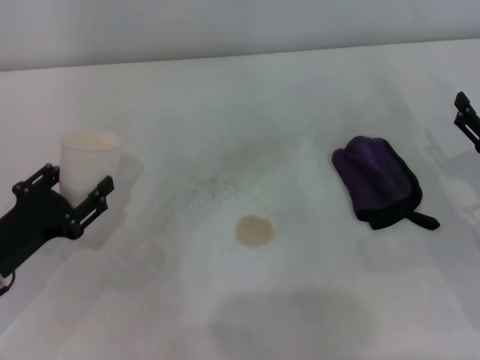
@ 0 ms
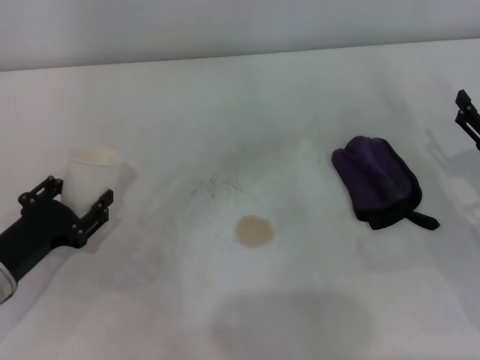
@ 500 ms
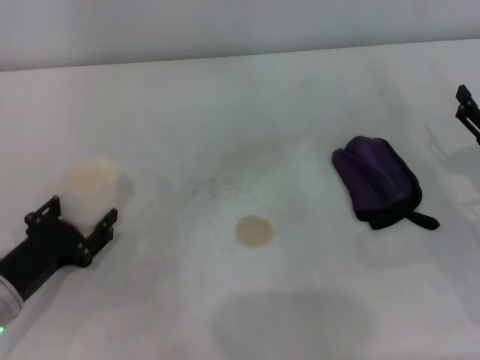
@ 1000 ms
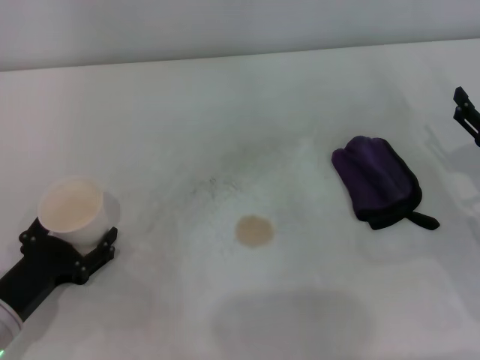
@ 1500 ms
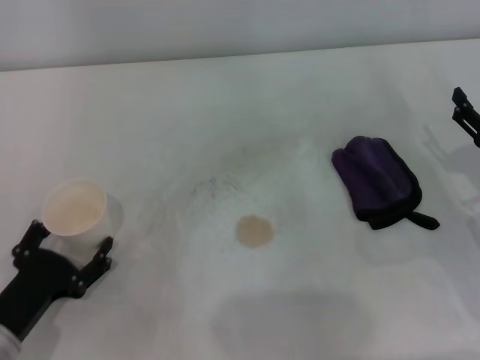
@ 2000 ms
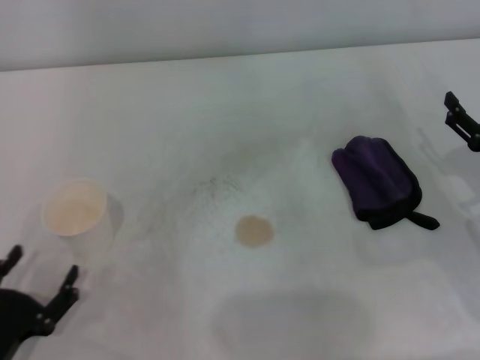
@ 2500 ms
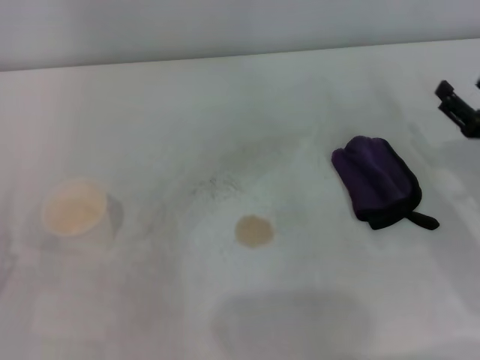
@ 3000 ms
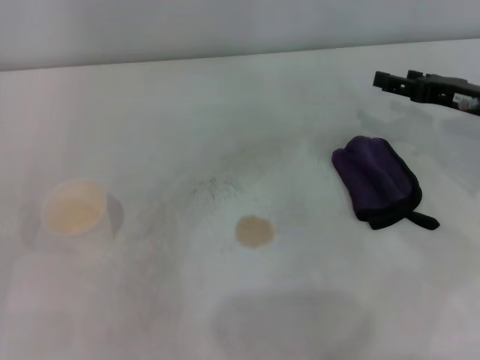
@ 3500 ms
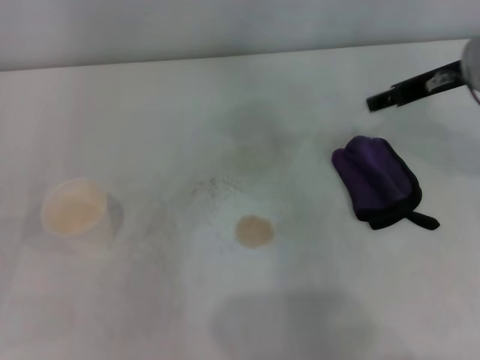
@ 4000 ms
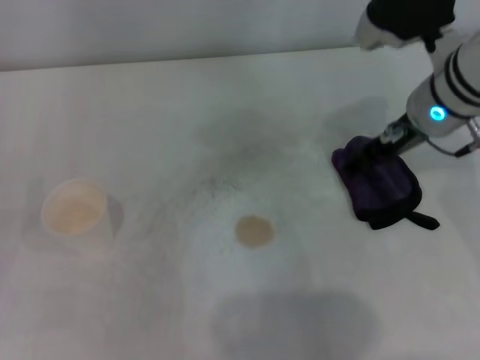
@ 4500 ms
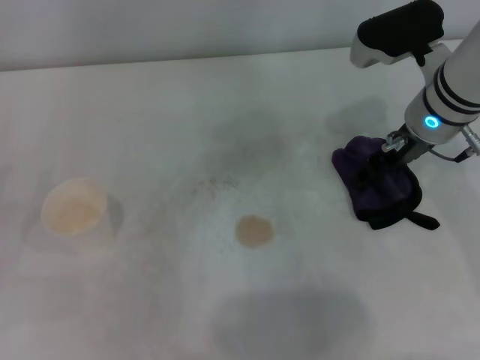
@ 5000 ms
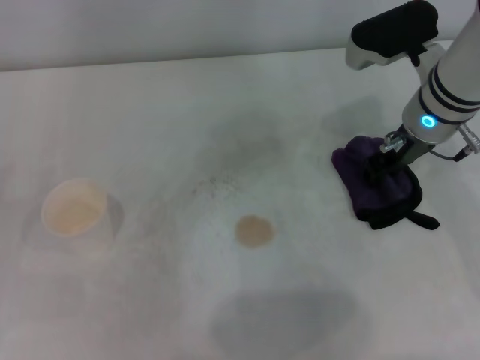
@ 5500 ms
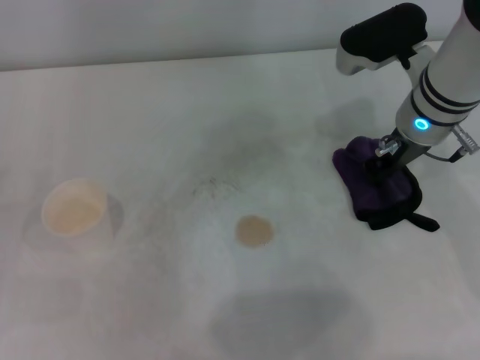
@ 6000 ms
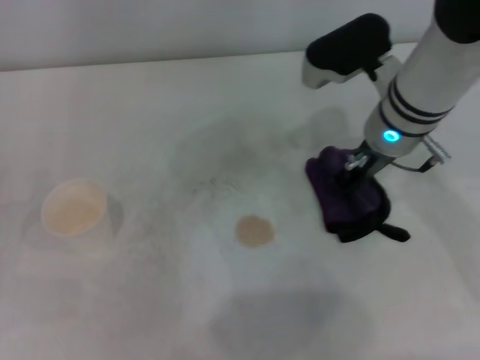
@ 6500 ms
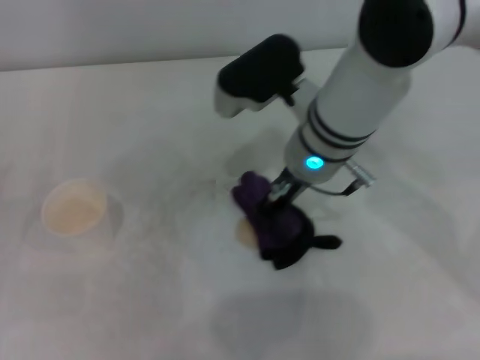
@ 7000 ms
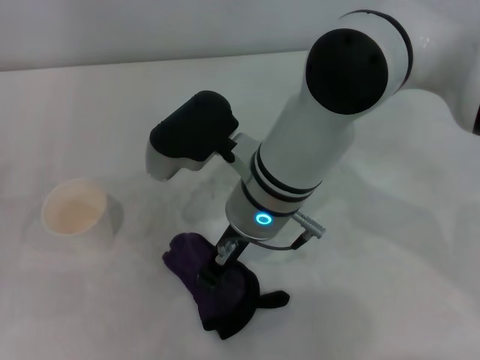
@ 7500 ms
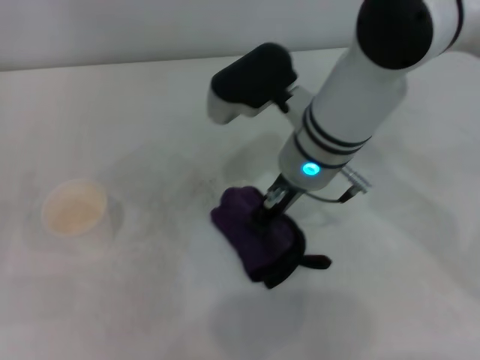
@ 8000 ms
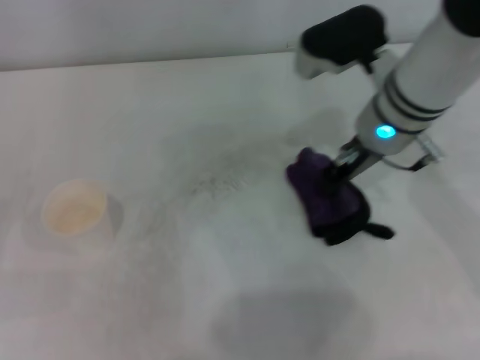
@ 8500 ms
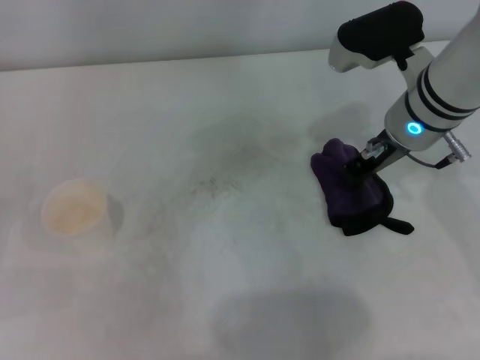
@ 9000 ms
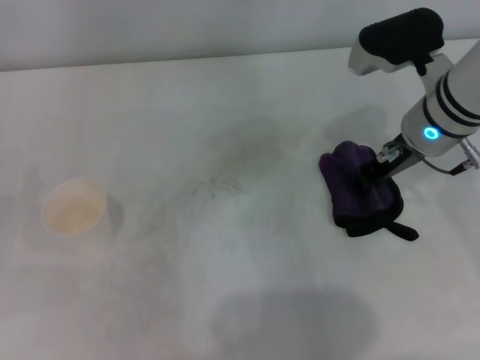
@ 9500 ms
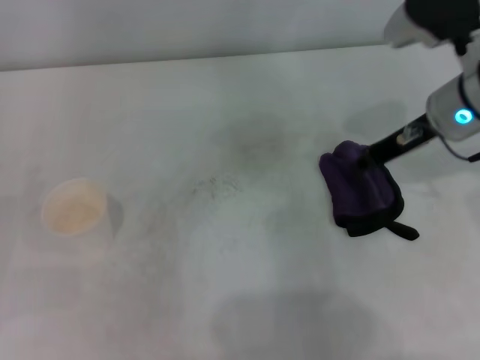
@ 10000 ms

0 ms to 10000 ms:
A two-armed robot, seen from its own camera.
Step, 2000 ms to 6000 ms: Grasp the rag with the right gripper.
Step, 6500 ms to 8500 ms: Wipe the stains off the table with the right gripper.
Step, 9000 ms to 9500 ms: Place the rag on the table with the right gripper.
0 ms to 2000 ms: The left gripper heads backward, covering approximately 5 cm, and opens.
2000 ms to 4000 ms: The left gripper heads to the left and upward, covering some 15 cm, while the right gripper travels upward, forward and to the left by about 20 cm.
4000 ms to 6000 ms: The right gripper heads to the left, covering roughly 5 cm, and closes up.
6000 ms to 8000 ms: The right gripper goes roughly 10 cm to the left.
8000 ms to 10000 ms: The right gripper goes approximately 15 cm to the right.

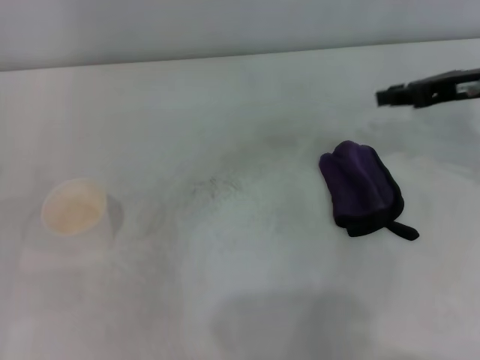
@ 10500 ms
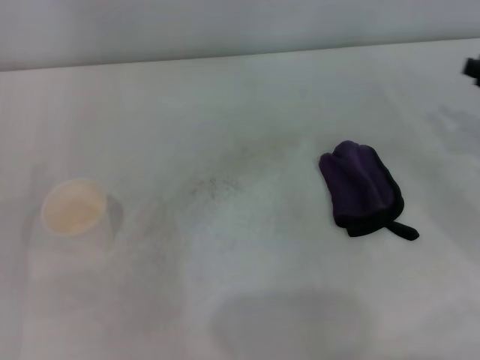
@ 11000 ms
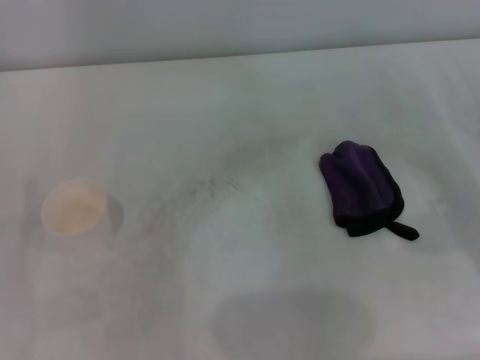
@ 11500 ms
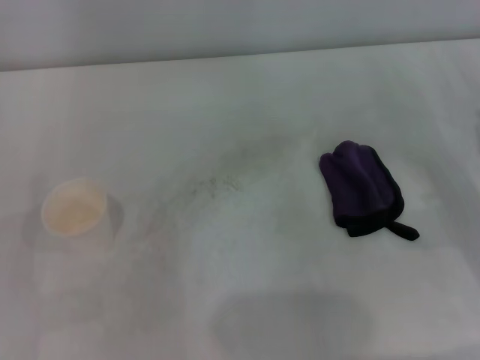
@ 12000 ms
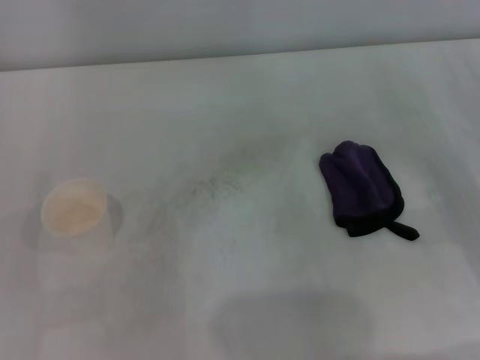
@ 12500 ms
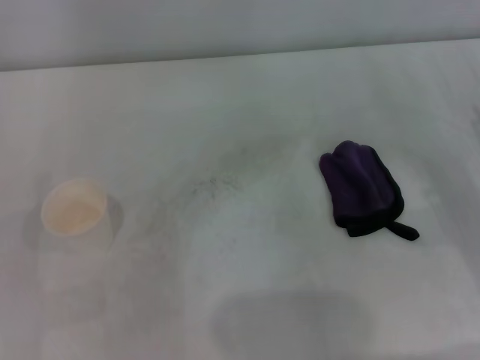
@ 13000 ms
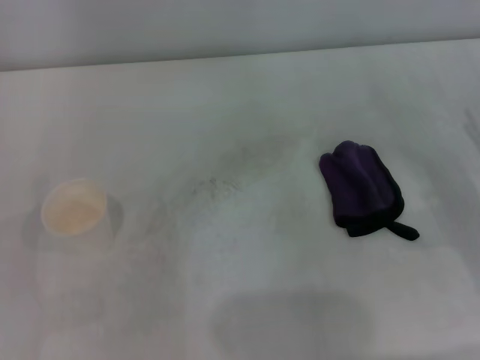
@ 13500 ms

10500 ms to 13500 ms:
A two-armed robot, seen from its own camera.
10500 ms to 12000 ms: The right gripper heads downward, backward and to the right, covering some 15 cm.
